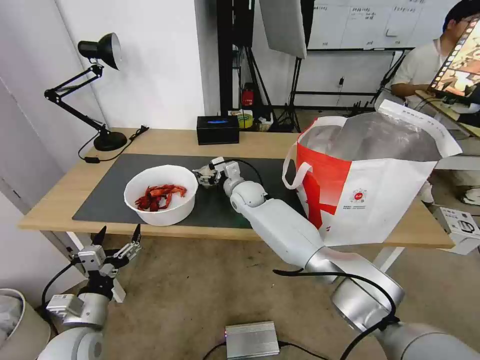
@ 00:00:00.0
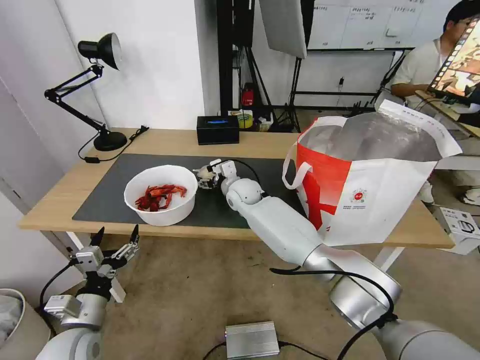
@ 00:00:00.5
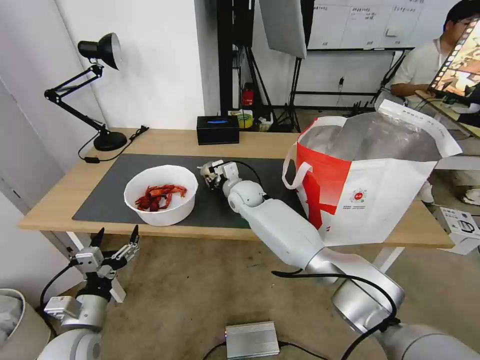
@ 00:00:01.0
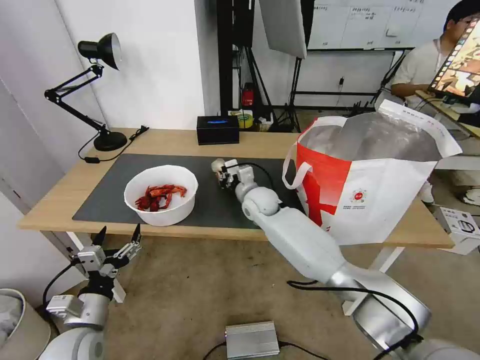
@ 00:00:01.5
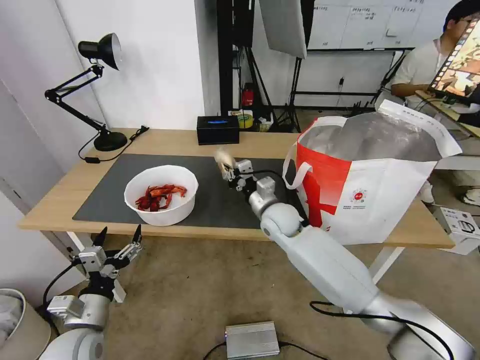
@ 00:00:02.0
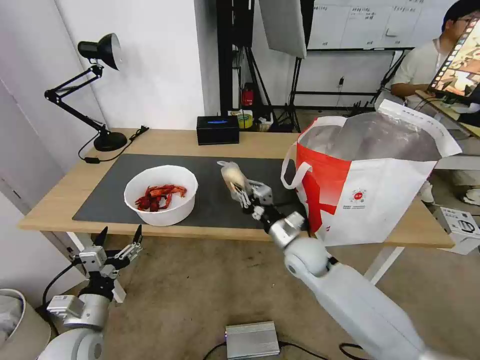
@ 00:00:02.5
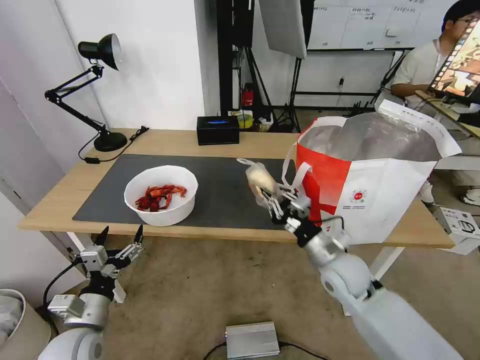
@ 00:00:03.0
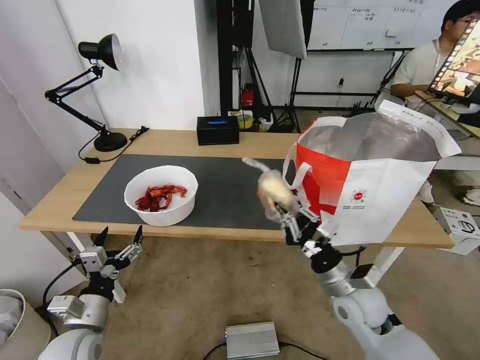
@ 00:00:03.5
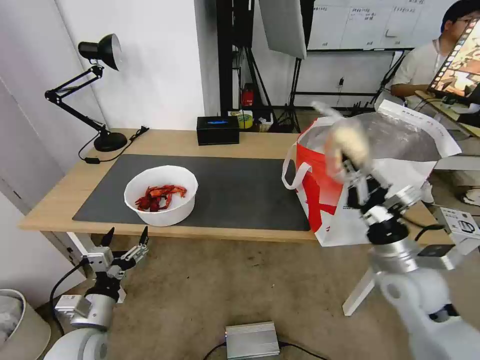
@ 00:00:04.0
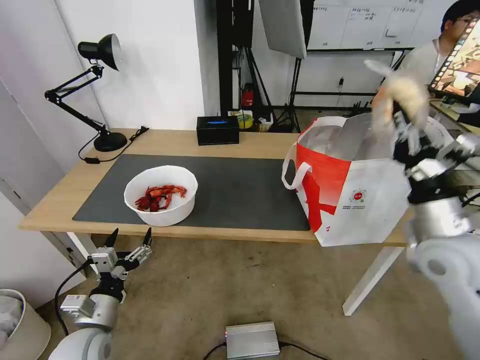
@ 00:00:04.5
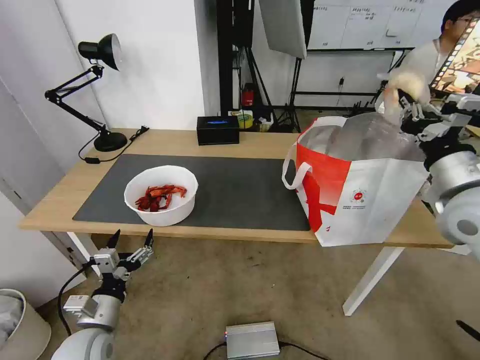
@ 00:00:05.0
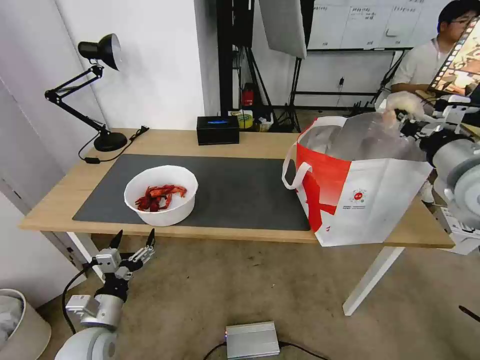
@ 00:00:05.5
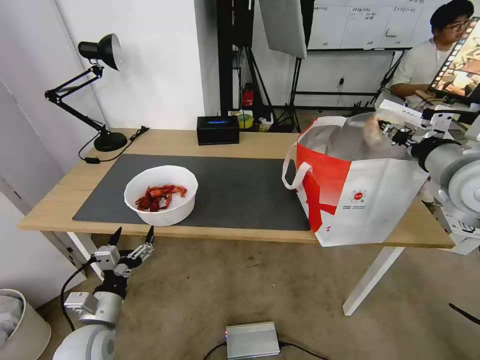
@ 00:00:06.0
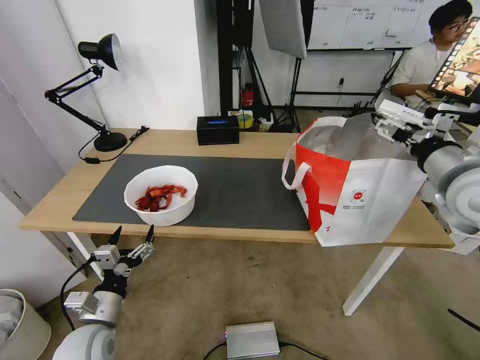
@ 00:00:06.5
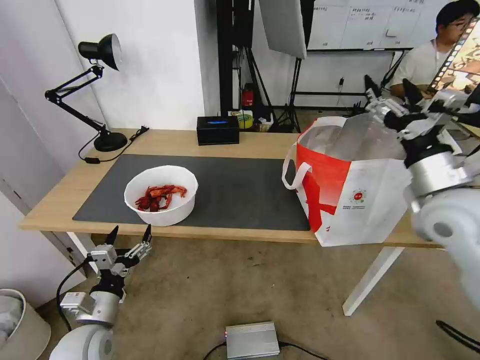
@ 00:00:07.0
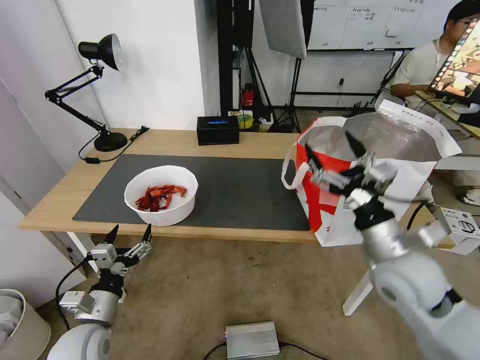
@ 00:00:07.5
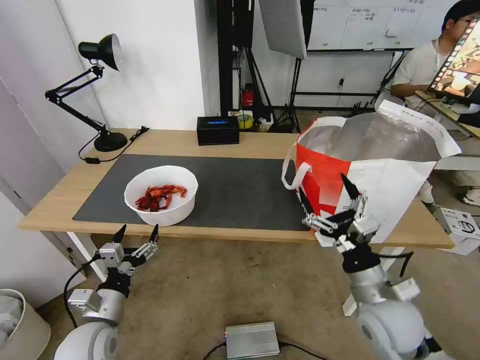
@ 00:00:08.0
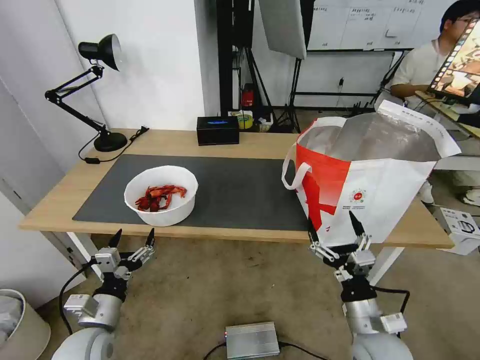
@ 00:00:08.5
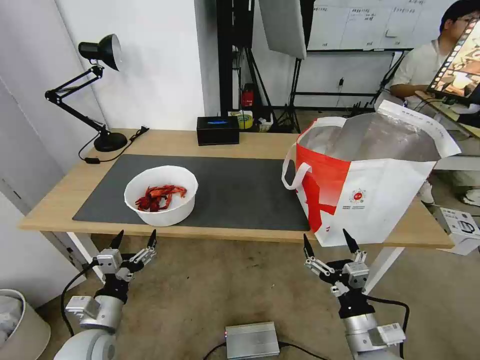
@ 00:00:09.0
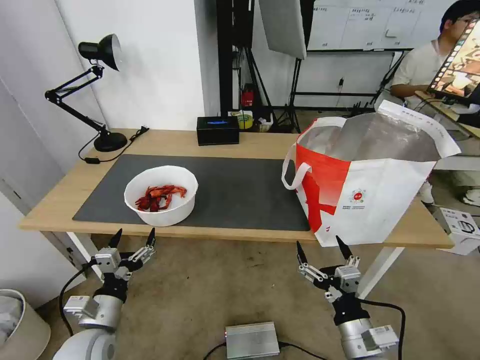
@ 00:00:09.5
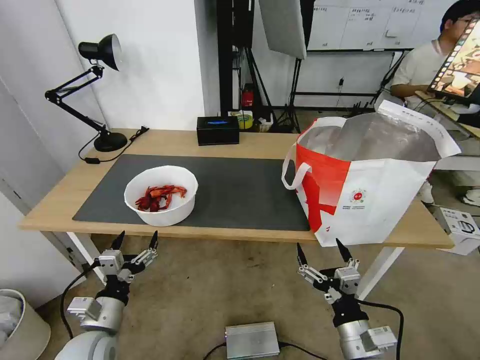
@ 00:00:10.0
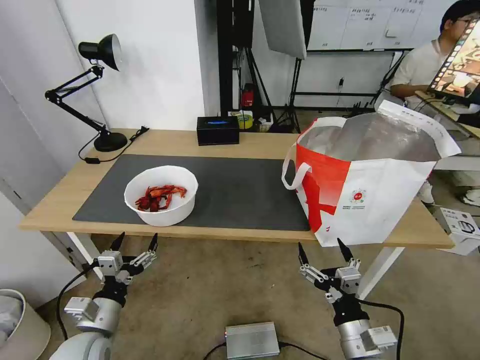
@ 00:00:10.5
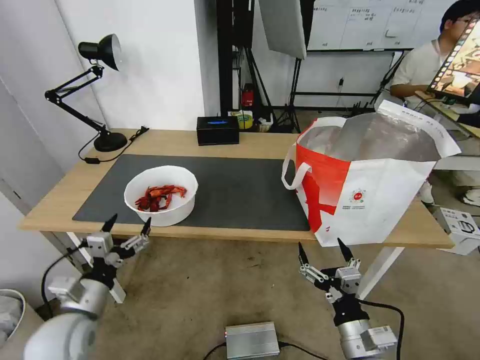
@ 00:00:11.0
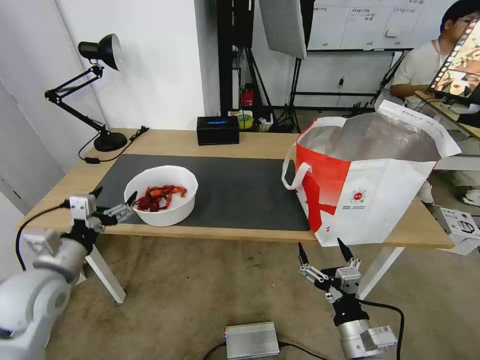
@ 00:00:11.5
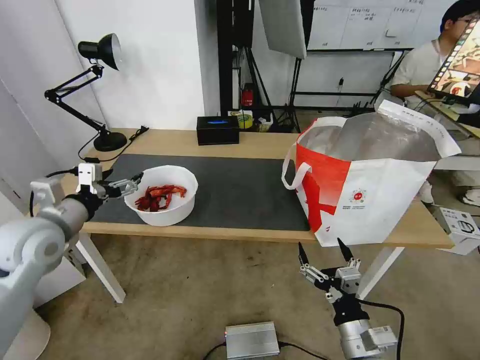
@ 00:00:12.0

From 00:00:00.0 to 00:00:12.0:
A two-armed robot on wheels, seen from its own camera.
Task of the whole recording: Pick up the trash from the table and place it into the takeout bag.
From 00:00:00.0 to 00:00:02.0: The right gripper travels backward and to the right by some 10 cm, and closes its fingers.
From 00:00:02.0 to 00:00:04.0: The right gripper is displaced to the right and backward by approximately 30 cm.
From 00:00:04.0 to 00:00:06.0: The right gripper is displaced upward by roughly 20 cm, and opens.
From 00:00:06.0 to 00:00:08.0: The right gripper goes about 30 cm downward, backward and to the left, and opens up.
From 00:00:08.0 to 00:00:10.0: The right gripper heads backward and downward, covering approximately 10 cm.
From 00:00:10.0 to 00:00:12.0: The left gripper shifts approximately 25 cm upward, forward and to the left.

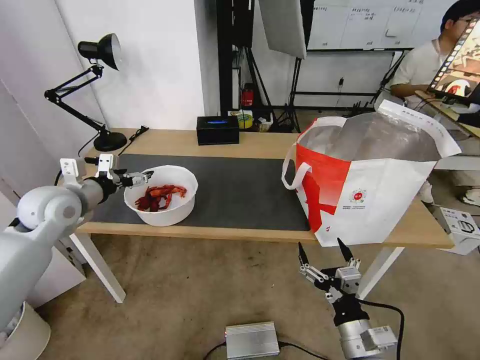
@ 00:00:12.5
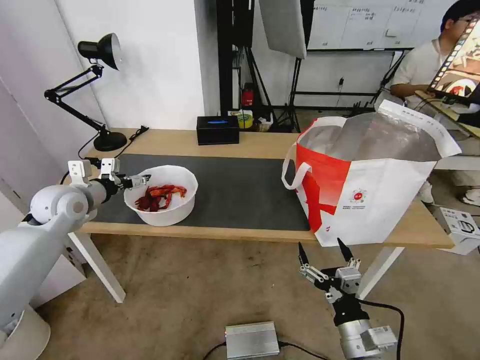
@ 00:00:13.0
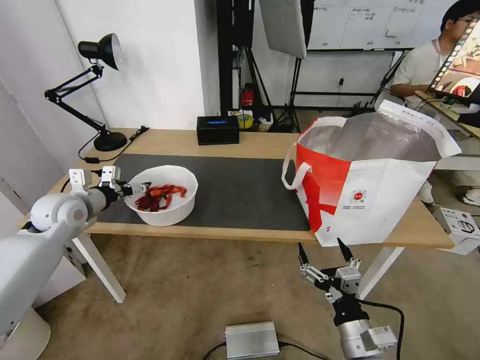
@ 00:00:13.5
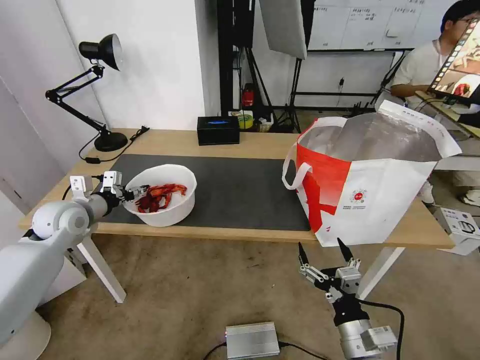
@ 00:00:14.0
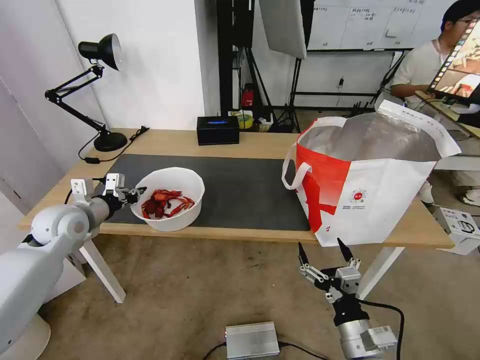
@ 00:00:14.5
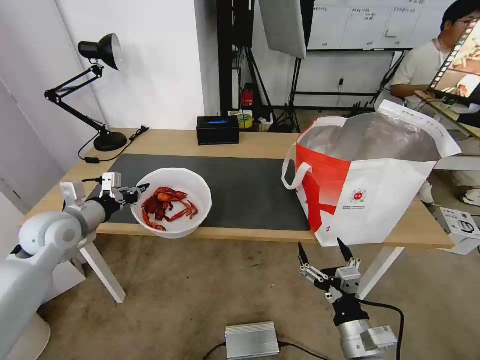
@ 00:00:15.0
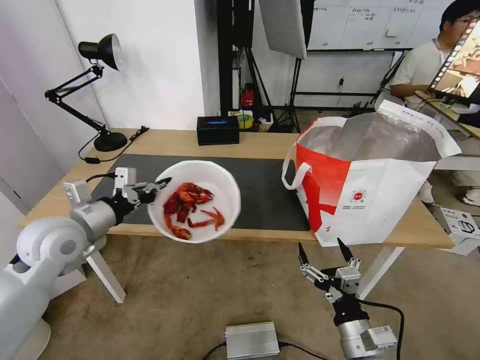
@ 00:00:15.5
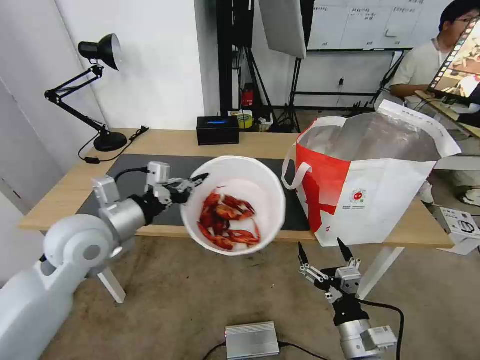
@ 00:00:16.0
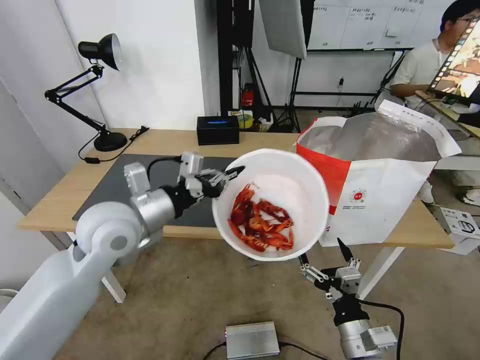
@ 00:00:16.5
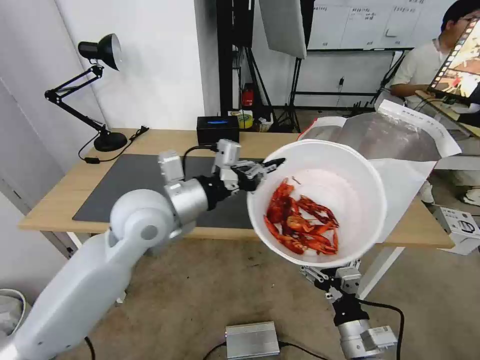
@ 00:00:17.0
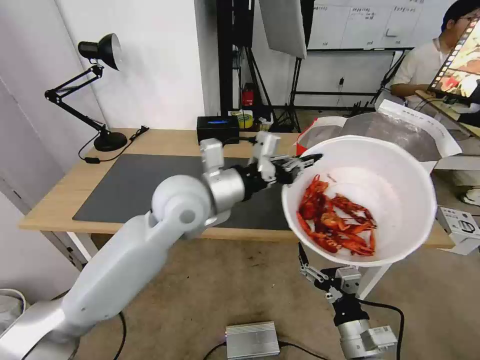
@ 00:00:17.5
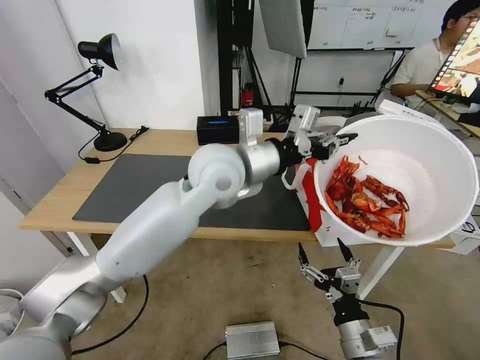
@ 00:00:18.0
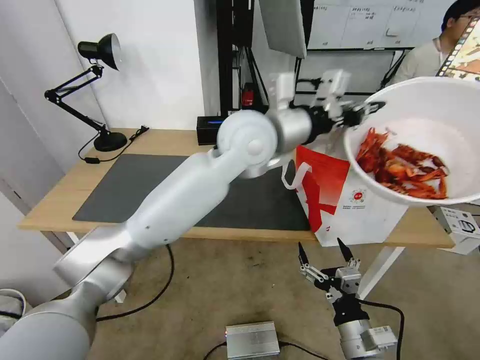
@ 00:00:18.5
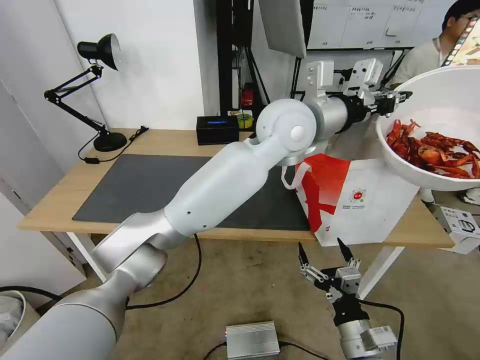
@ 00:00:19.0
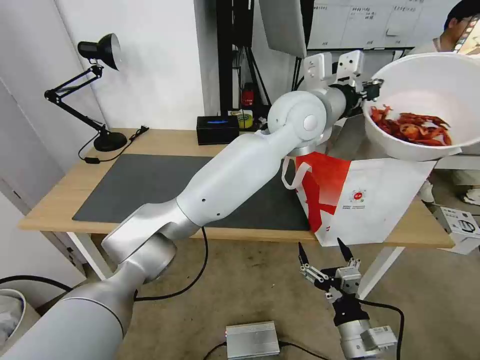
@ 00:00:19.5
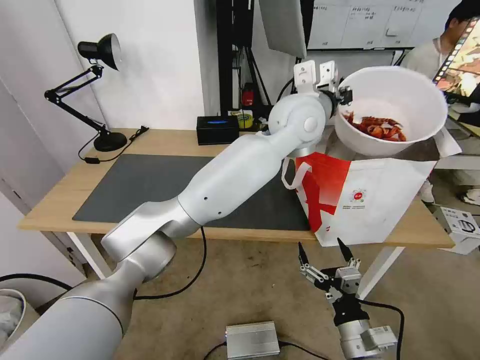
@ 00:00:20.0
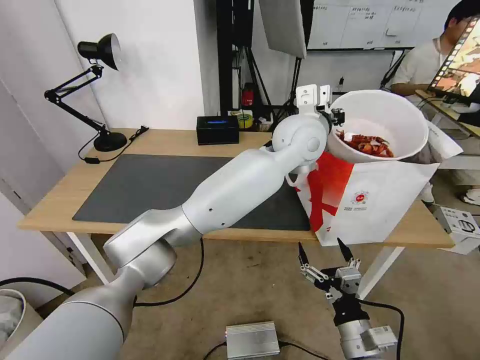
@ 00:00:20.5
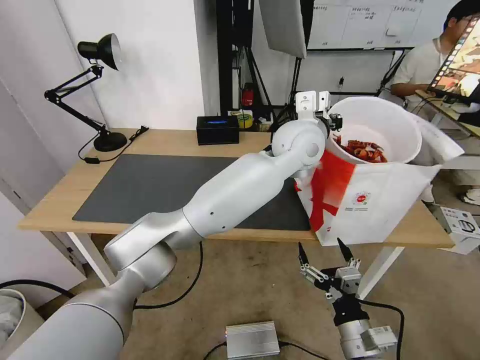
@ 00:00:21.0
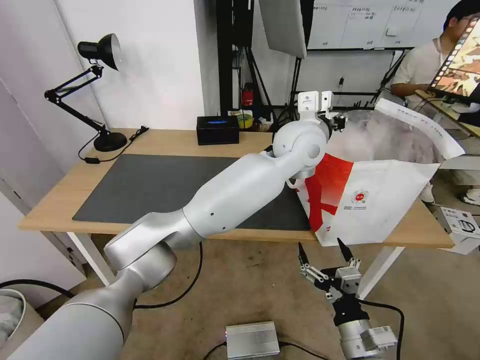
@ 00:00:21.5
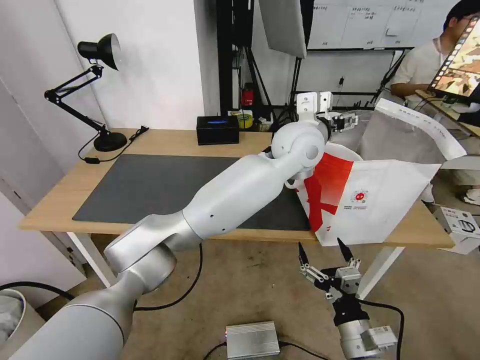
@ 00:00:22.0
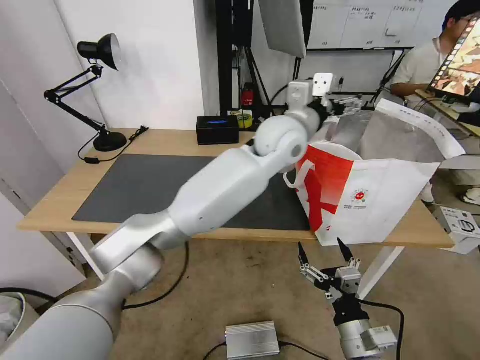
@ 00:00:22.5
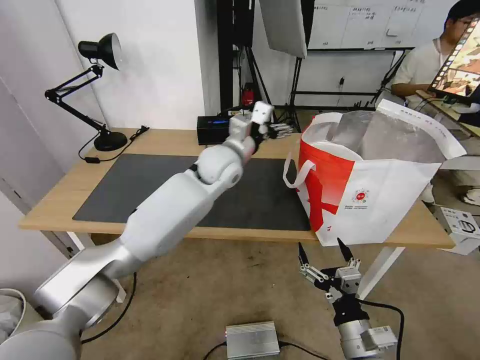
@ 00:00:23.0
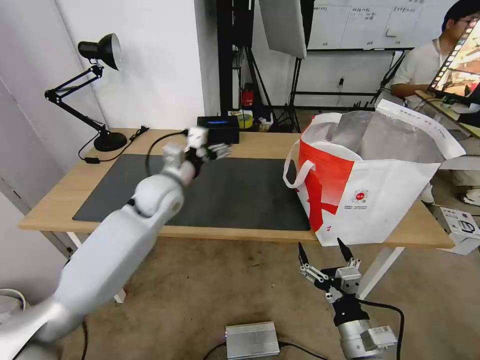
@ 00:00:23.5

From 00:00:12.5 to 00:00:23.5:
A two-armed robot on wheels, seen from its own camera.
Task of the whole recording: Pick up the trash from the table and place it into the takeout bag.
From 00:00:12.5 to 00:00:14.5: The left gripper heads downward, covering about 5 cm, and closes its fingers.
From 00:00:14.5 to 00:00:16.0: The left gripper moves to the right, backward and upward, approximately 15 cm.
From 00:00:16.0 to 00:00:18.0: The left gripper travels to the right by approximately 20 cm.
From 00:00:18.0 to 00:00:20.0: The left gripper heads to the right, forward and upward, covering roughly 20 cm.
From 00:00:20.0 to 00:00:21.5: The left gripper opens its fingers.
From 00:00:21.5 to 00:00:23.5: The left gripper is displaced to the left and downward by approximately 30 cm, and opens.

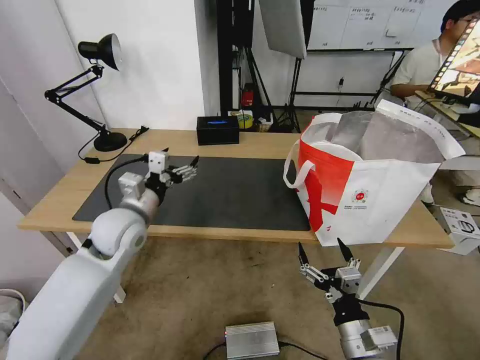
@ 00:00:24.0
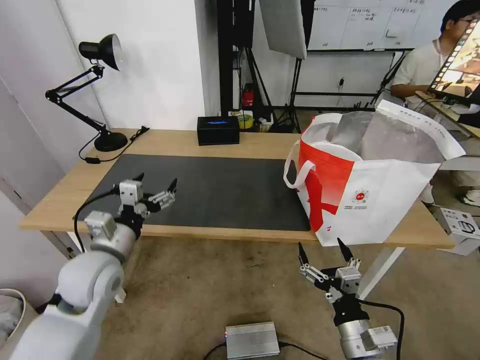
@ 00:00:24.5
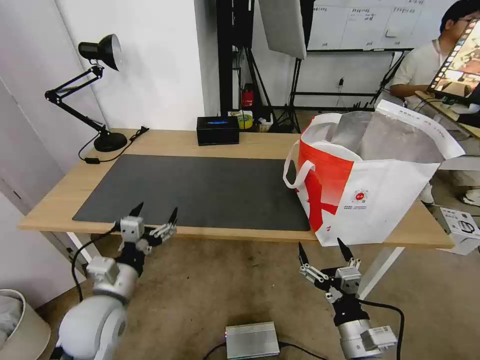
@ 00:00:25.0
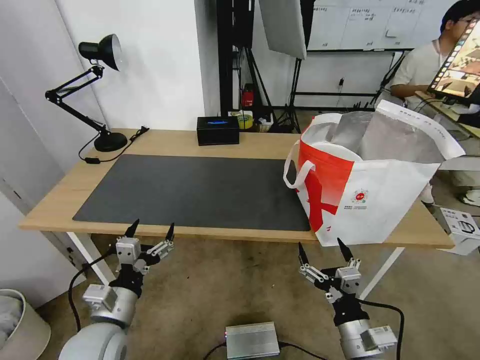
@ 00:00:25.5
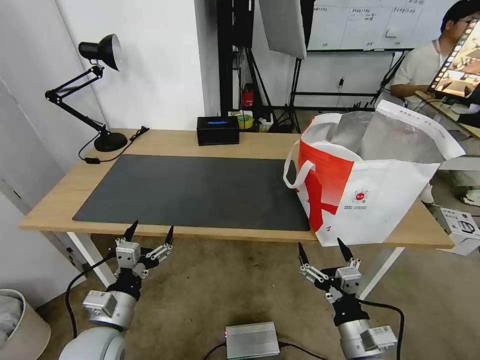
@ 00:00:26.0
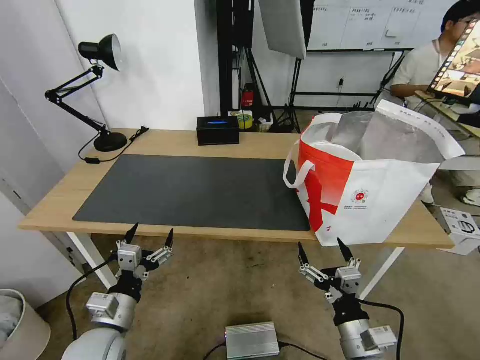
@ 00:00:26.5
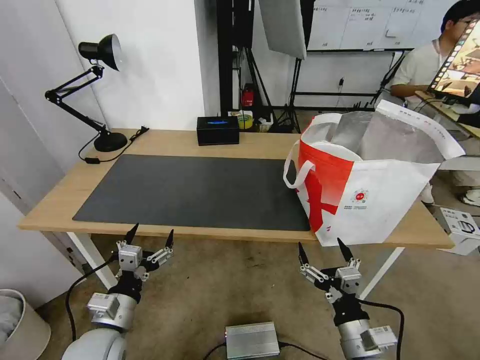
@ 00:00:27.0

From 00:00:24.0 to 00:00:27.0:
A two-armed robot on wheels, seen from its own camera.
Task of the whole recording: Pick up the trash from the table and place it into the takeout bag.
From 00:00:24.0 to 00:00:25.5: The left gripper travels backward and downward by some 20 cm.
From 00:00:25.5 to 00:00:27.0: The grippers make only small movements.
